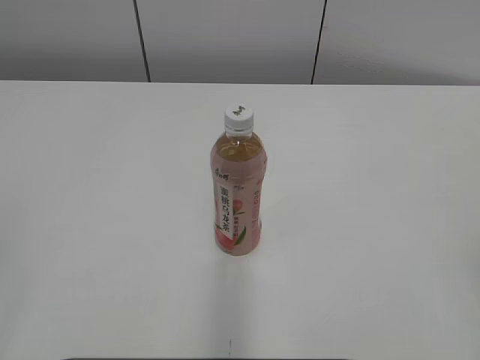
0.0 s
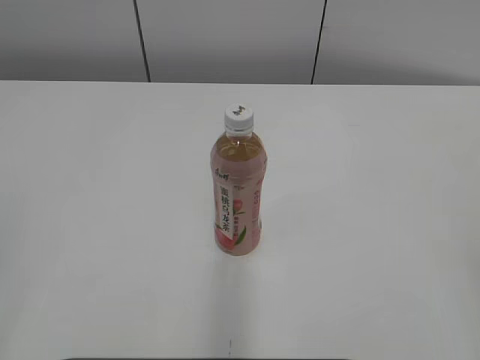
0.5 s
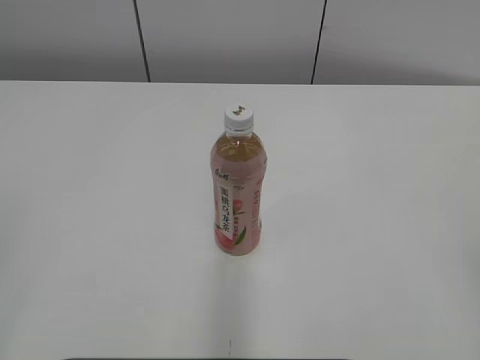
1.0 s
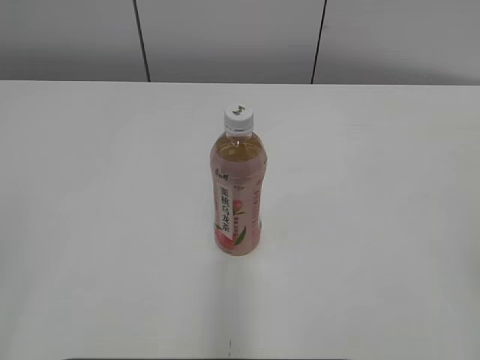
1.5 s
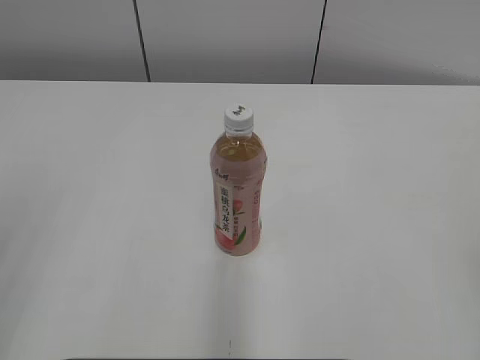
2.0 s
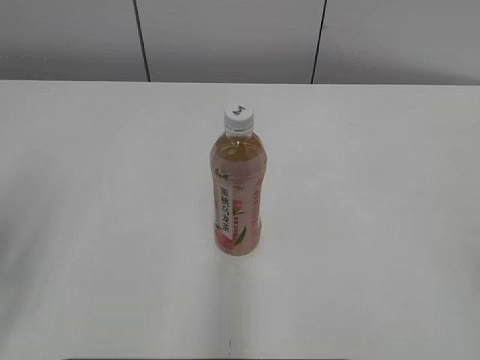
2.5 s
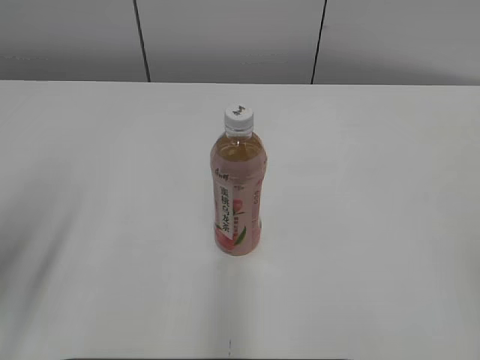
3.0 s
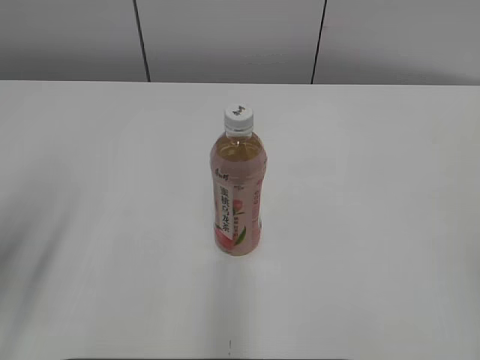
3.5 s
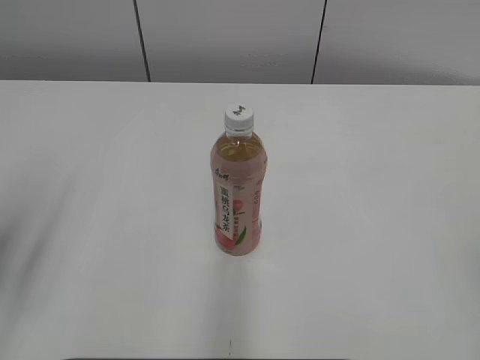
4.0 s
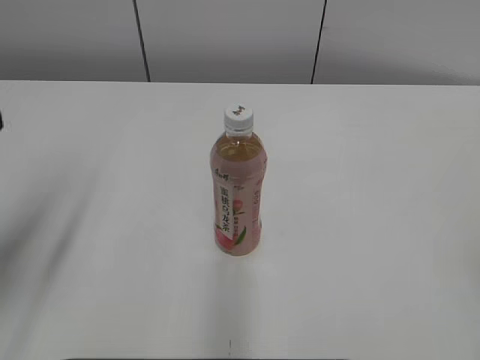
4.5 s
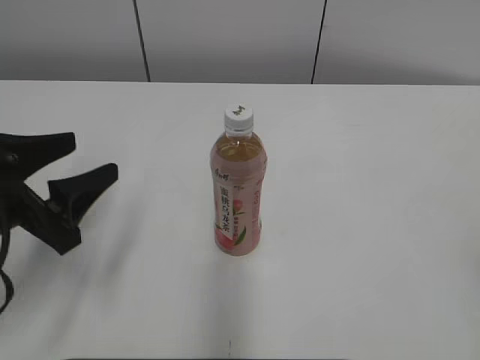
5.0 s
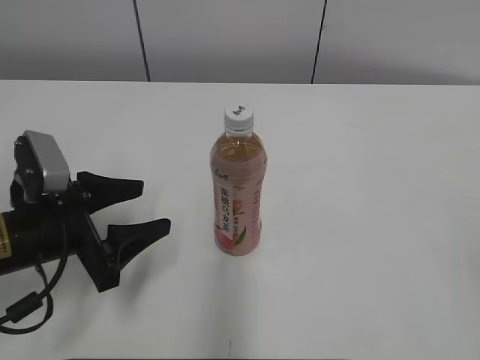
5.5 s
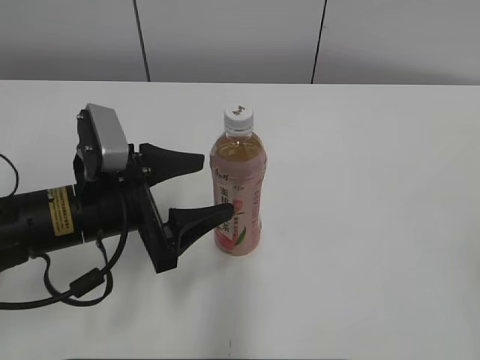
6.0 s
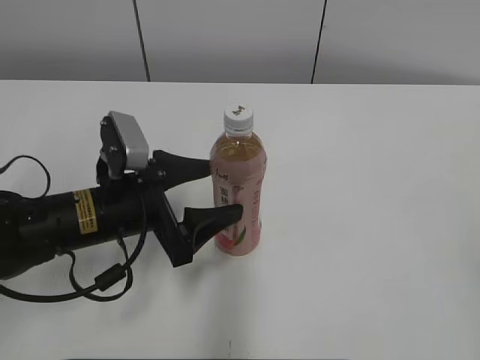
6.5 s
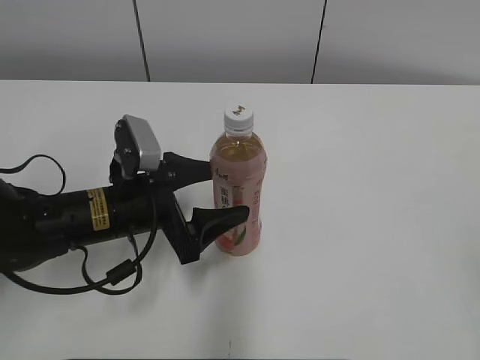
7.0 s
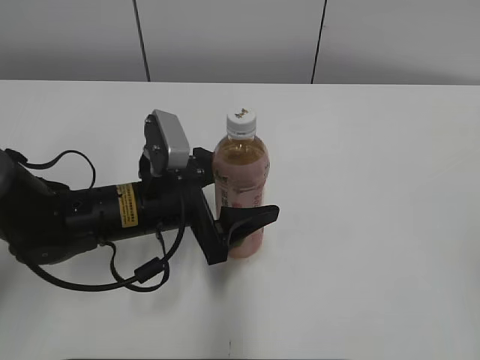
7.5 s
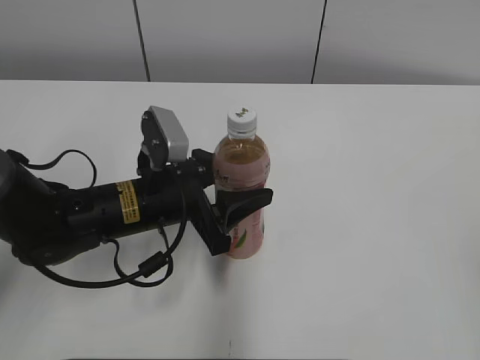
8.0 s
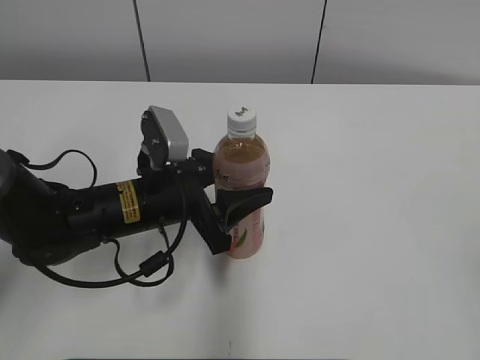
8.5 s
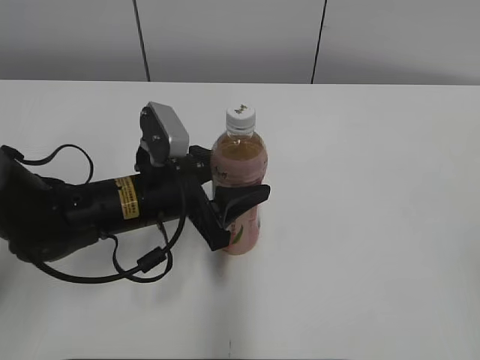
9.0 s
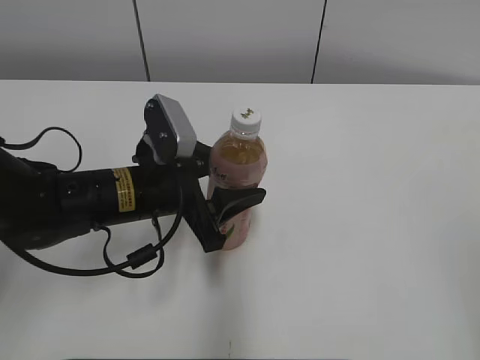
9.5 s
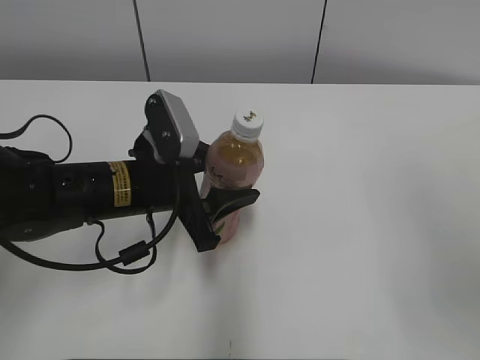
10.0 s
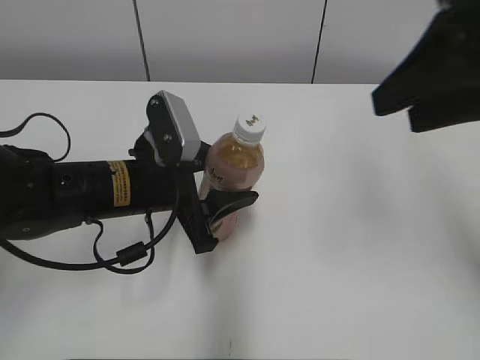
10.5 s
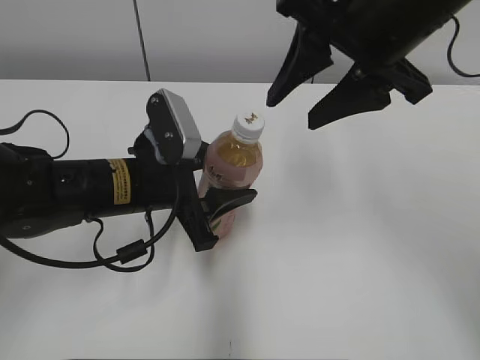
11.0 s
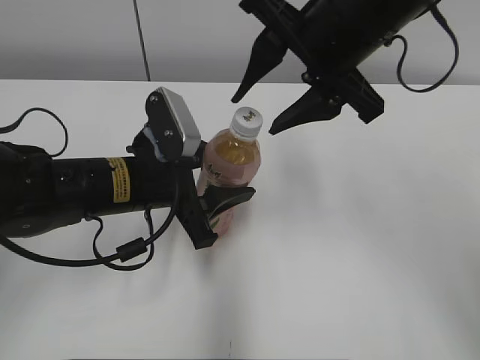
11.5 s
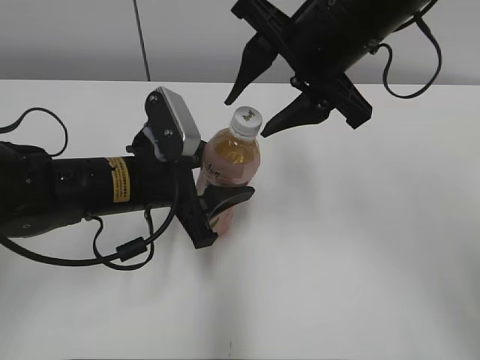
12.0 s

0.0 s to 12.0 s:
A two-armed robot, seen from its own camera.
Step, 0.0 to 7.5 s: Grasp the bottle and move it to the center of the table with the left gripper.
4.0 to 6.0 s: The left gripper moves to the right, downward and forward, approximately 20 cm, and opens.
6.0 to 8.0 s: The left gripper shifts by about 5 cm, and closes its fingers.
8.0 to 10.0 s: The right gripper goes some 10 cm forward.
10.0 to 12.0 s: The right gripper travels forward and to the left by some 25 cm.

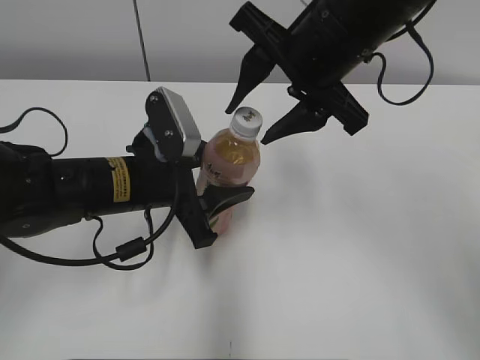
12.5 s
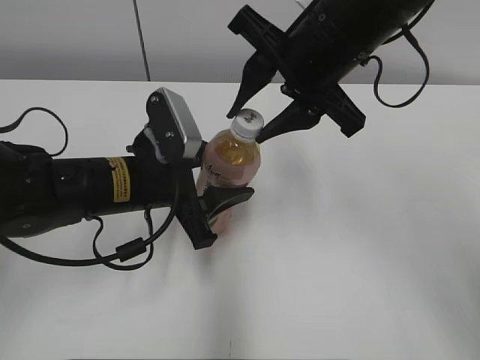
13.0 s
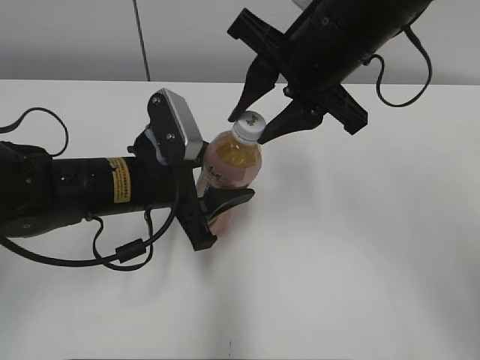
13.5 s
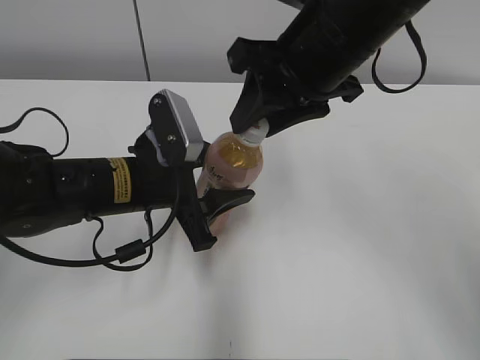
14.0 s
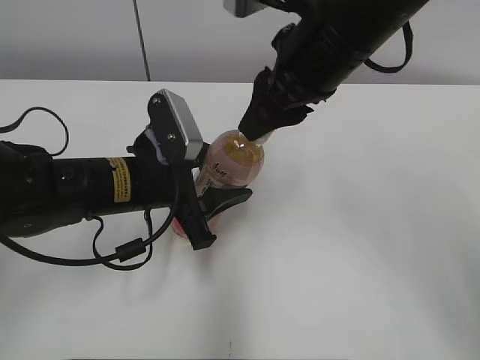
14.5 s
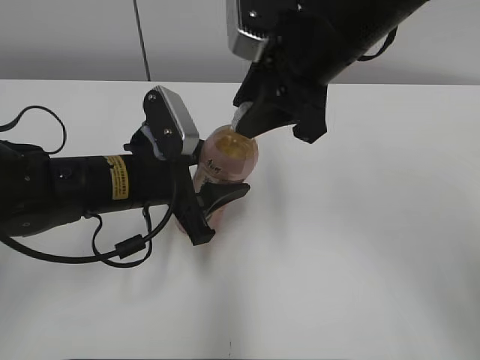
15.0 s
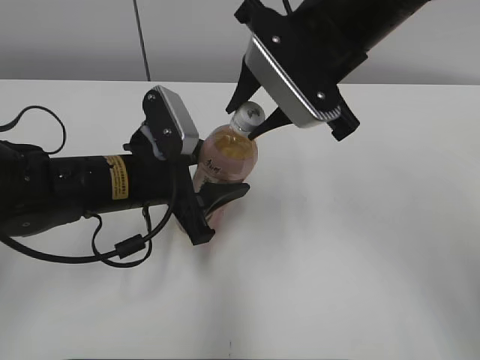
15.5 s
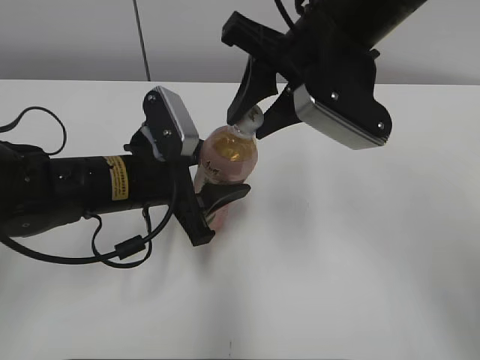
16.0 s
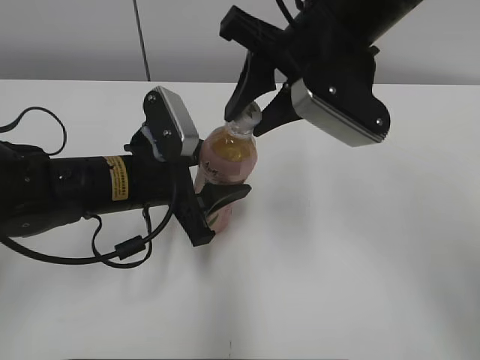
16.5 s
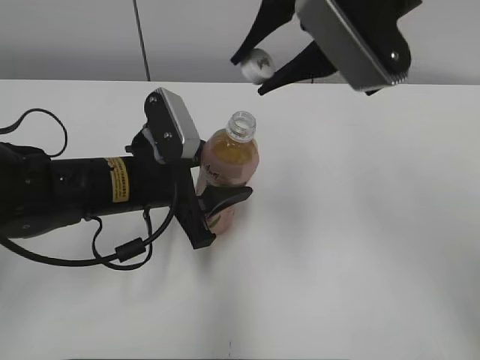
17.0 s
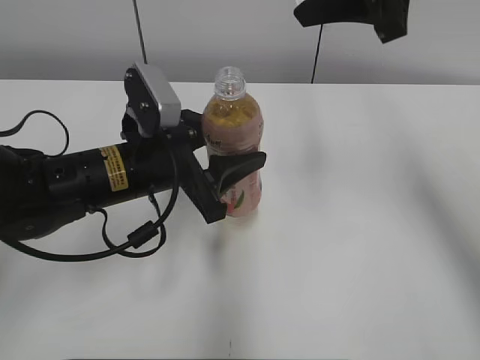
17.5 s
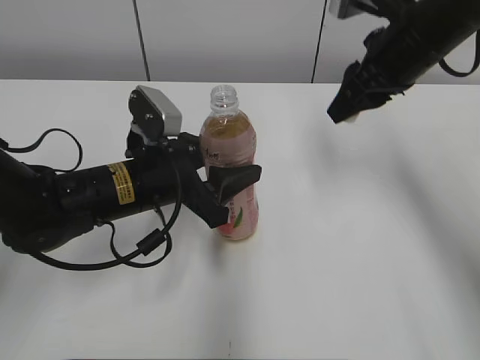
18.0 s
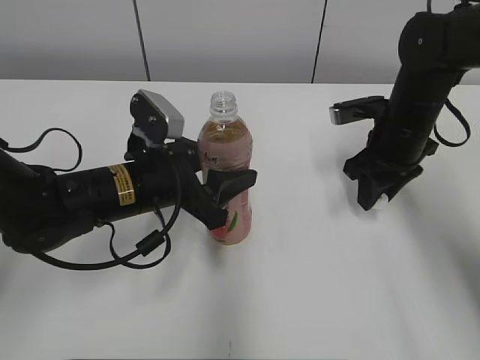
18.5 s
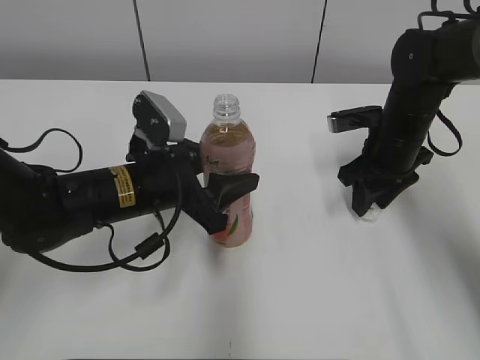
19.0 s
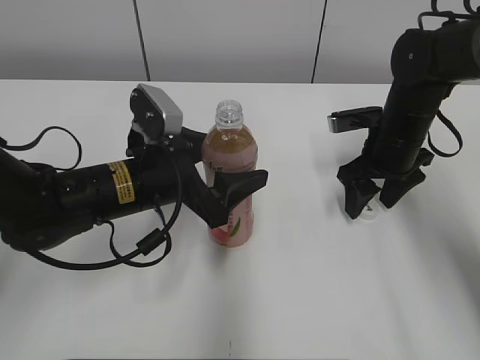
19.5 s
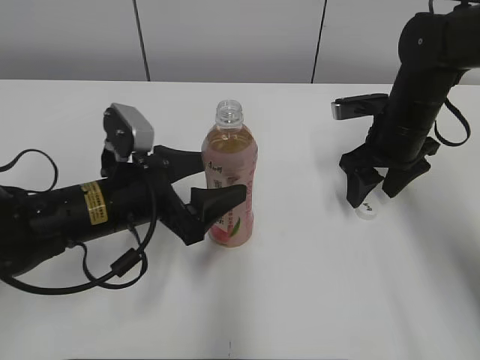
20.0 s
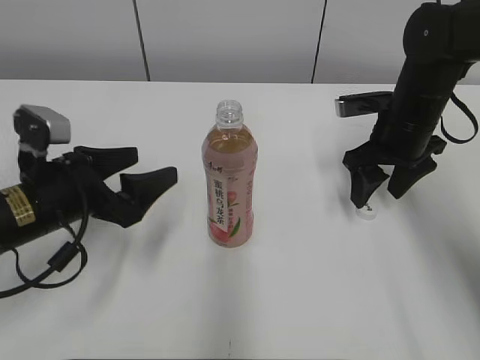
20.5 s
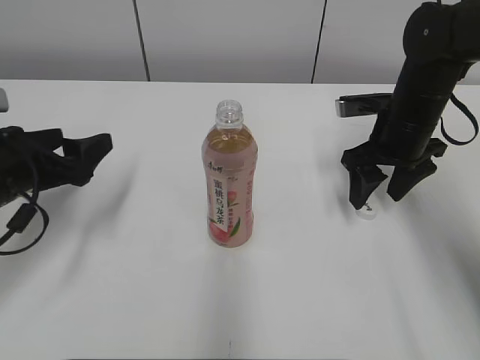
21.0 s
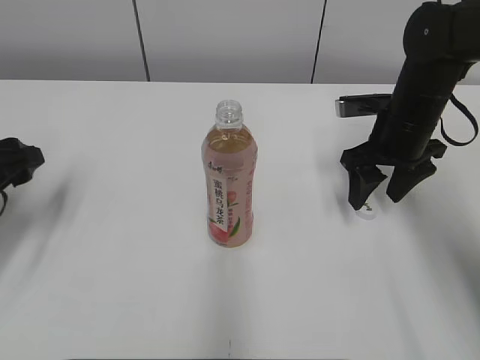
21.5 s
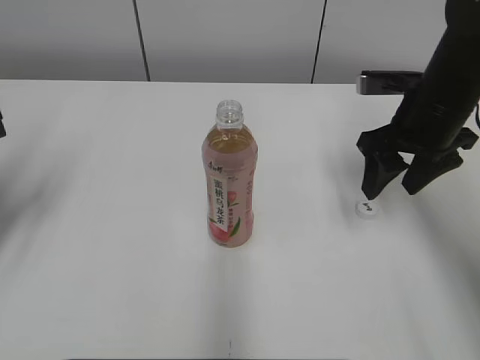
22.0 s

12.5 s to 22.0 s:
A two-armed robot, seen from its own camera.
Step, 12.5 to 16.5 s: Unscrew the bottle cap with the right gripper while holding the bottle with the left gripper.
Step, 17.0 to 19.0 s: Place the bottle cap on the table with the right gripper.
12.5 to 14.5 s: The right gripper closes its fingers.
16.5 to 18.0 s: The right gripper is displaced to the right and forward by approximately 15 cm.
18.0 to 20.0 s: The right gripper is displaced downward by roughly 10 cm, and opens up; the left gripper opens up.
20.0 to 22.0 s: The right gripper is displaced upward by some 5 cm; the left gripper shifts roughly 20 cm to the left and upward.

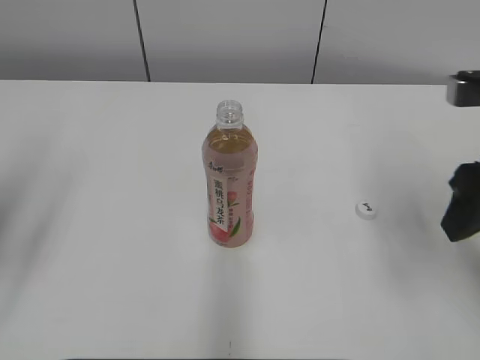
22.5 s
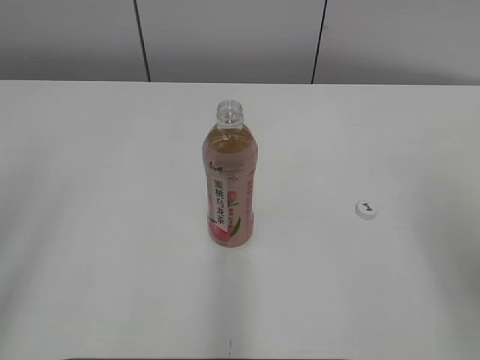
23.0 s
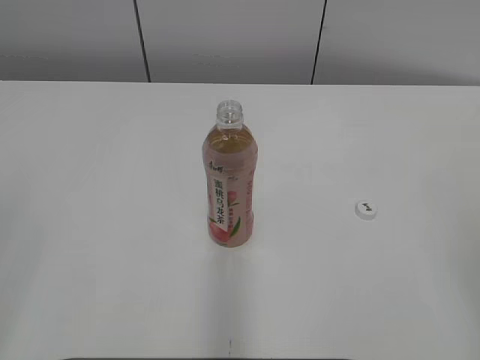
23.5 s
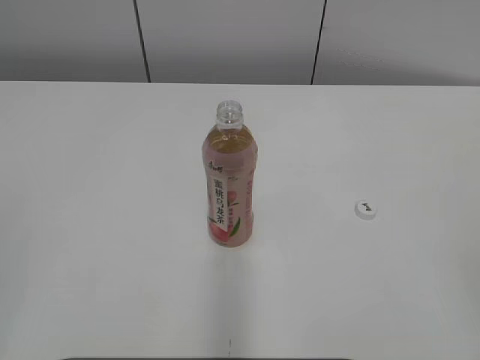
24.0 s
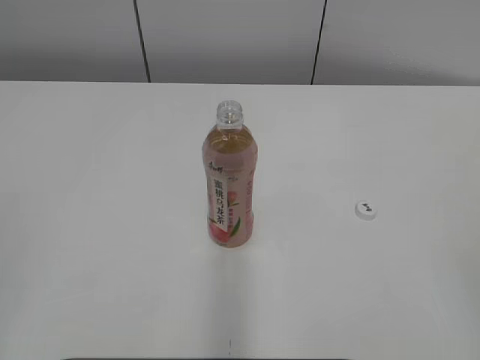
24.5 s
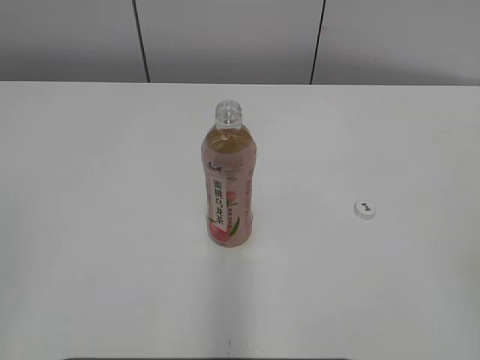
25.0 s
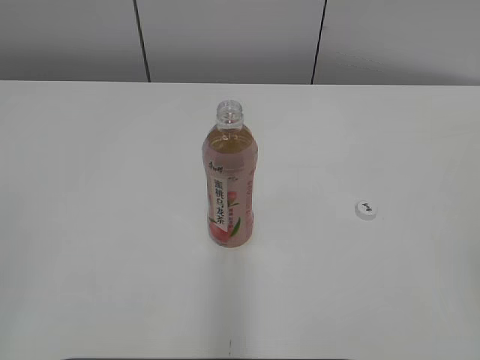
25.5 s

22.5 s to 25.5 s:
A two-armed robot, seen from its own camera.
22.5 to 24.0 s: Both grippers travel together backward, about 20 cm.

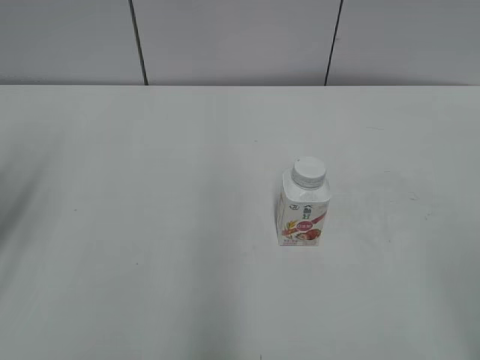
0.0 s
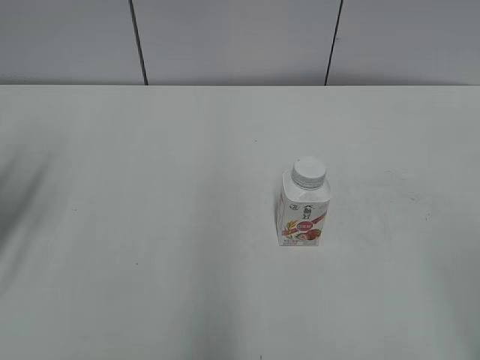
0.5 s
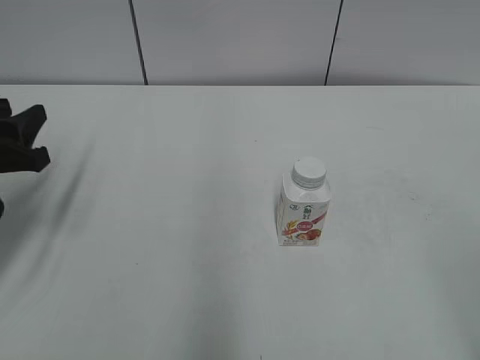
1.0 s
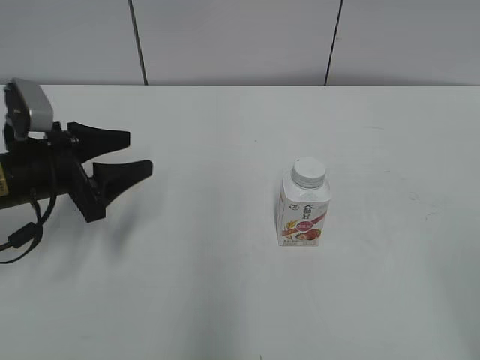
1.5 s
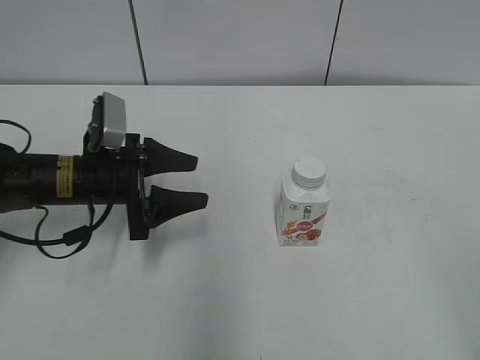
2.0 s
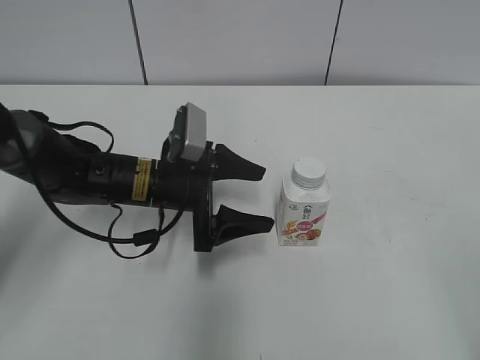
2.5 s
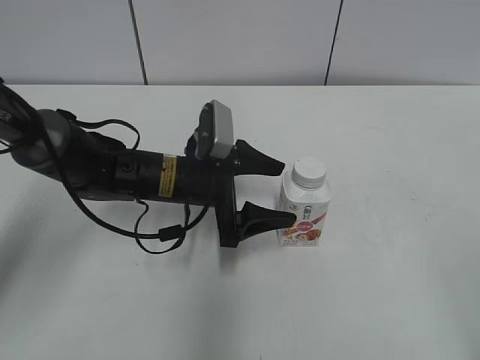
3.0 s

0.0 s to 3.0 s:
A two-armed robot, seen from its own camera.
0.0 to 1.5 s: The left gripper shifts roughly 15 cm downward, forward and to the right.
1.5 to 3.0 s: The left gripper moves to the right, approximately 15 cm, and opens.
